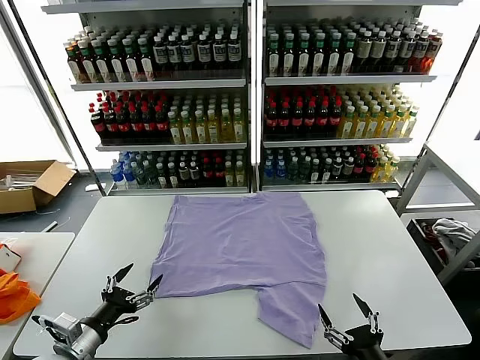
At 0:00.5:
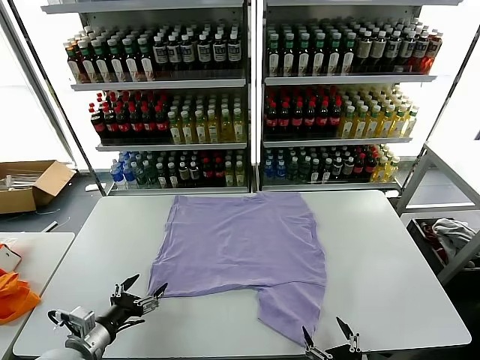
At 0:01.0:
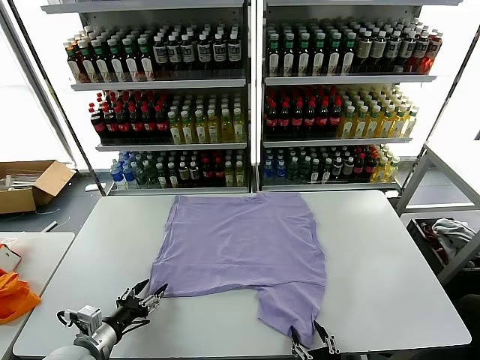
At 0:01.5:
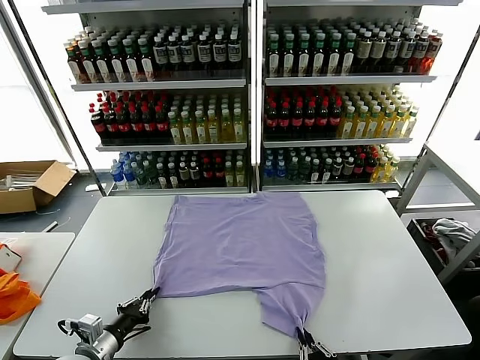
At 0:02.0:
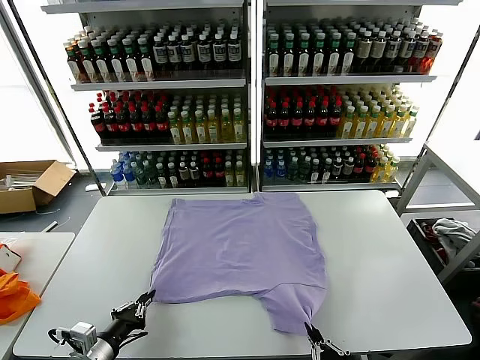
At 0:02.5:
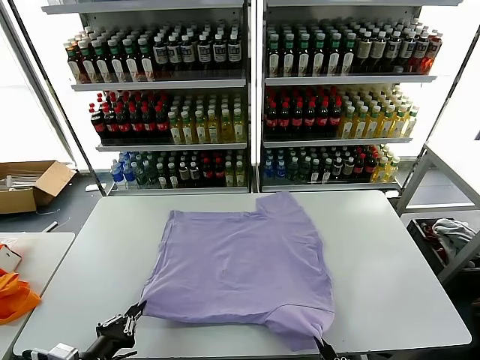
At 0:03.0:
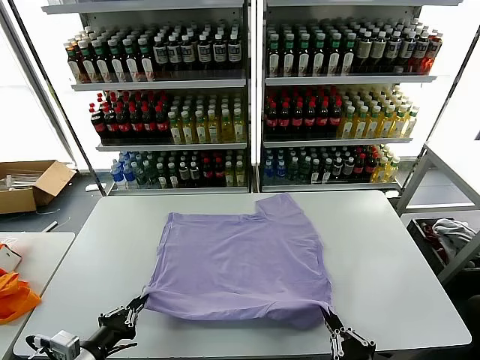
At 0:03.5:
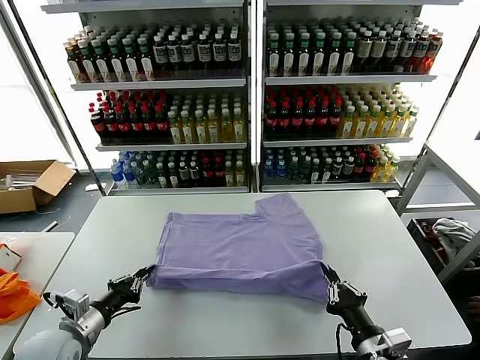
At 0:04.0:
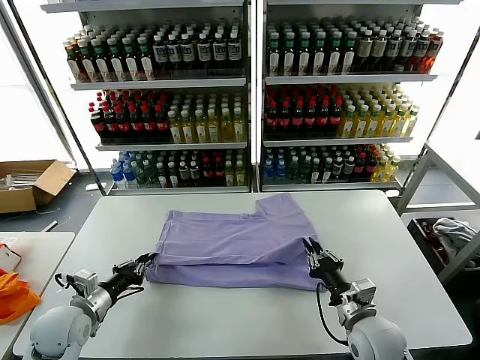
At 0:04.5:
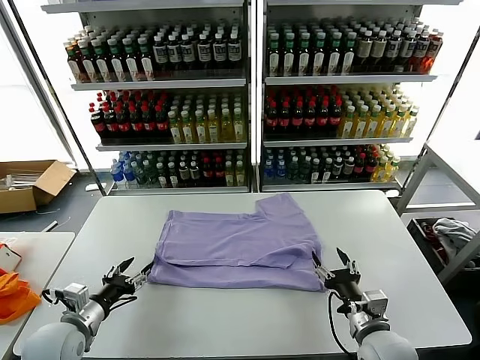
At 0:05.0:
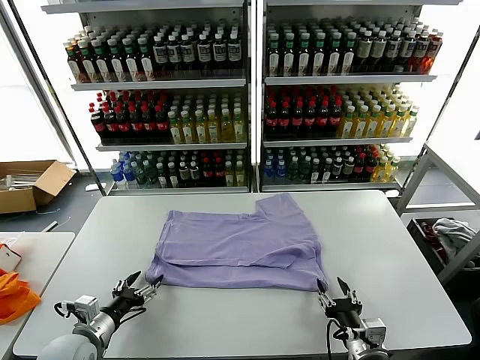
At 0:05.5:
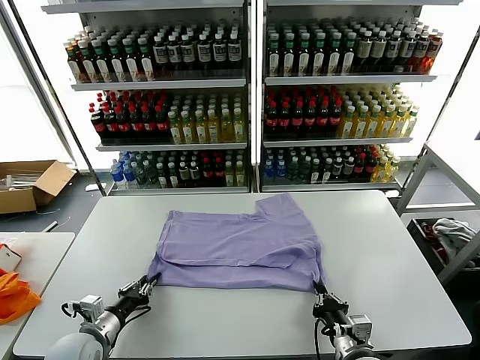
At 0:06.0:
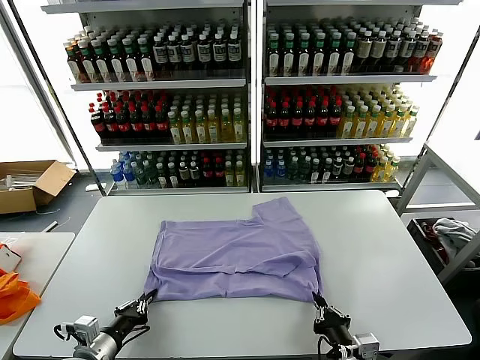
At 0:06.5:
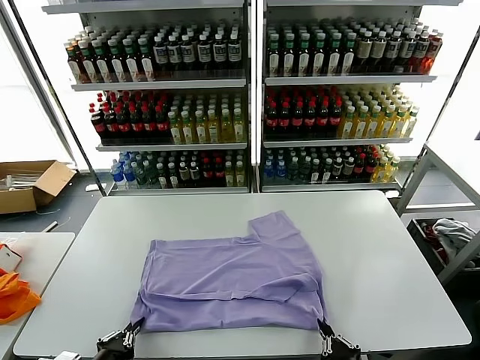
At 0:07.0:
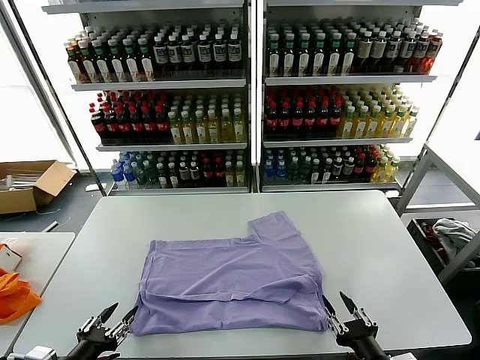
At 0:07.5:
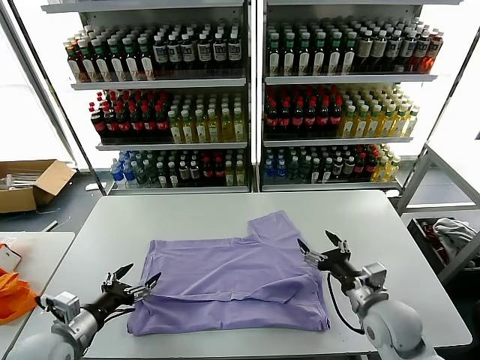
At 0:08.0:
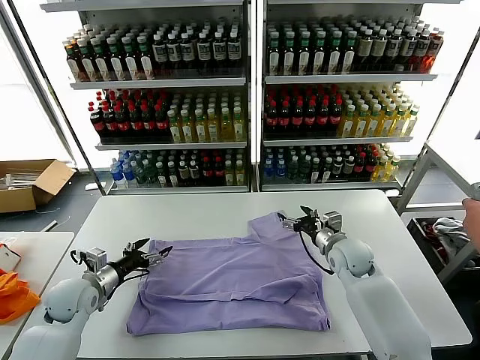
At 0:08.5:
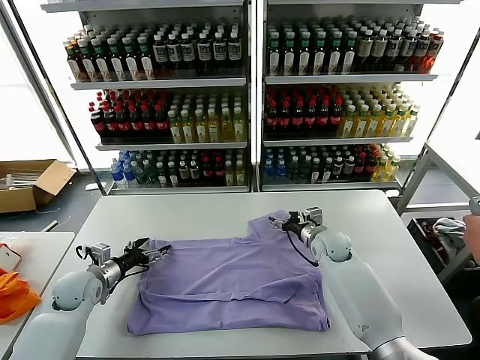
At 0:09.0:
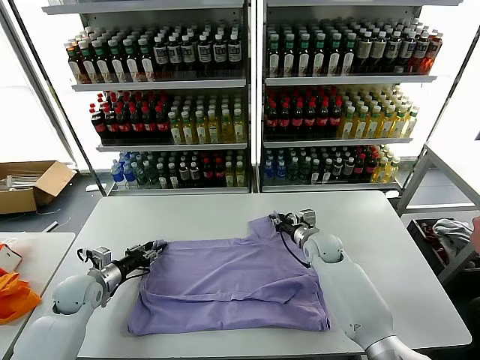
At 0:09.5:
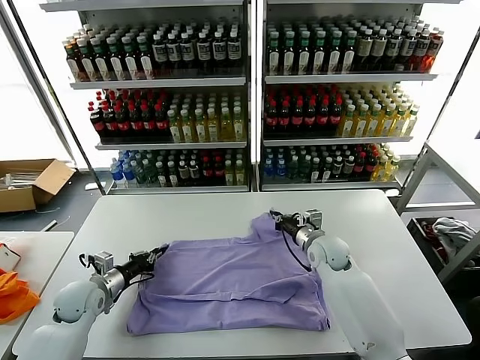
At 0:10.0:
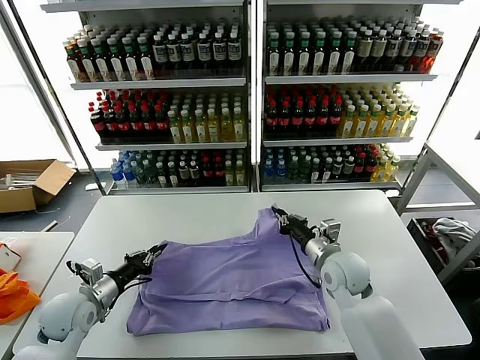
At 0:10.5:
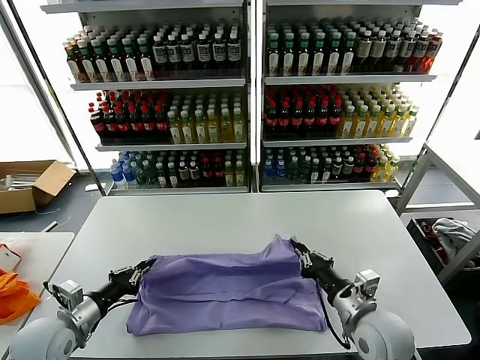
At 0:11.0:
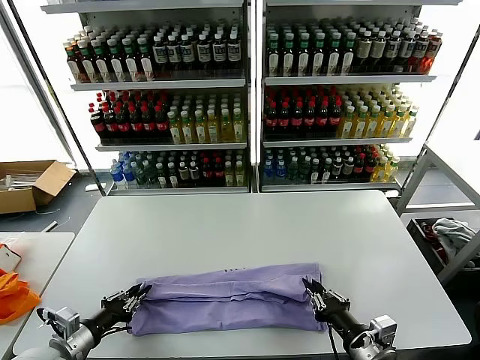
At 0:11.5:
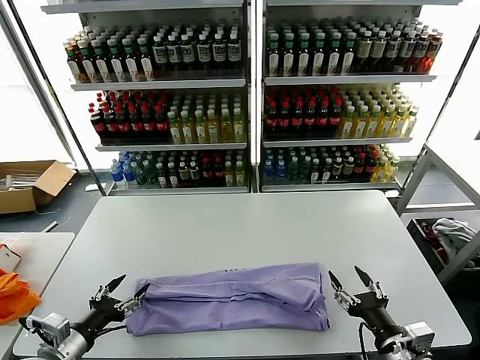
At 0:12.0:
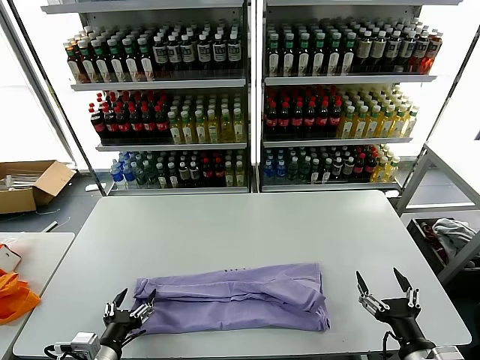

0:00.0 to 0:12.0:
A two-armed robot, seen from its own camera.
Task of the whole recording: fold and organize the clothes.
Step, 0:00.0 to 0:01.5: use both grippers simultaneously to clamp the lower edge of the clothing fabric.
Step, 0:02.0 to 0:04.0: use both grippers to drag the lower edge of the fabric forward and fold it over the upper edge.
Step, 0:04.5 to 0:06.5: Drag the clothes downward with both gripper.
Step, 0:07.0 to 0:09.5: use both grippers simultaneously to clamp the upper edge of the clothing fabric.
Step, 0:10.0 to 0:11.0: use both grippers to drag the upper edge of the fabric backward and fold it over the lower edge.
0:02.0 to 0:04.0: The right gripper goes about 20 cm forward, and opens up. The left gripper shifts approximately 10 cm forward.
0:04.0 to 0:06.0: The grippers both shift backward by some 10 cm. The right gripper closes. Meanwhile the left gripper opens, then closes again.
0:06.0 to 0:08.0: The left gripper travels forward by roughly 15 cm, and opens its fingers; the right gripper is displaced forward by some 35 cm, and opens its fingers.
0:08.0 to 0:10.0: The left gripper shifts by about 5 cm, and closes up. The right gripper goes roughly 10 cm backward, and closes.
0:10.0 to 0:12.0: The right gripper is displaced backward and to the right by about 25 cm, and opens its fingers, while the left gripper shifts about 15 cm backward and to the right, and opens.

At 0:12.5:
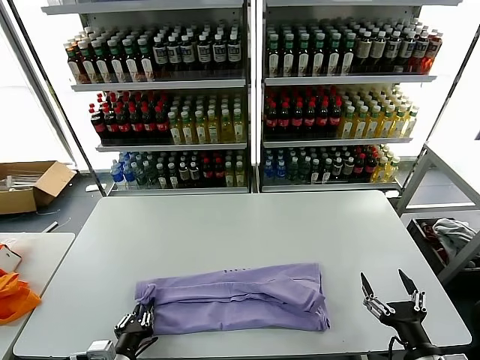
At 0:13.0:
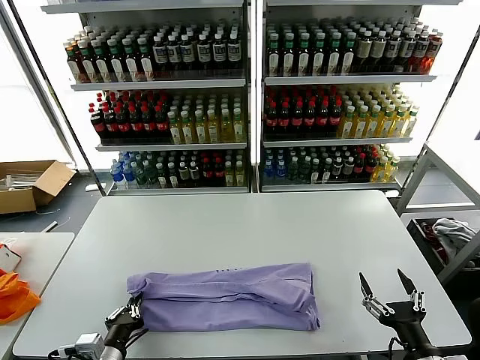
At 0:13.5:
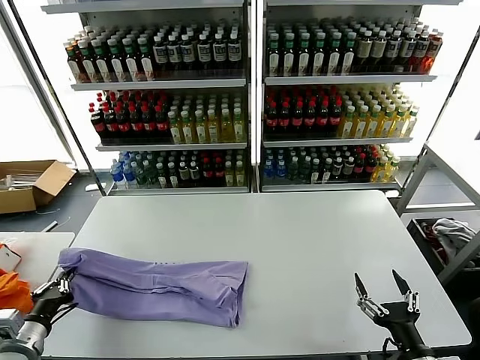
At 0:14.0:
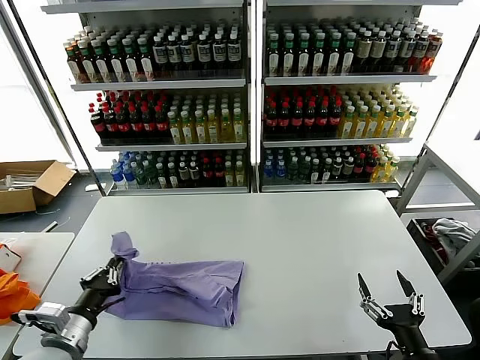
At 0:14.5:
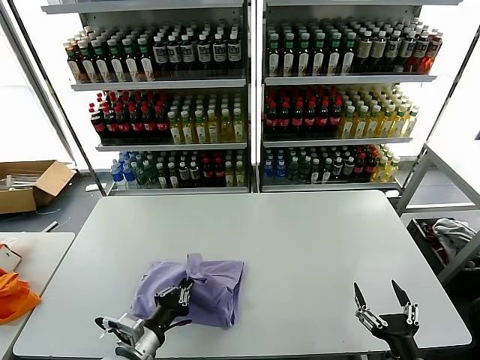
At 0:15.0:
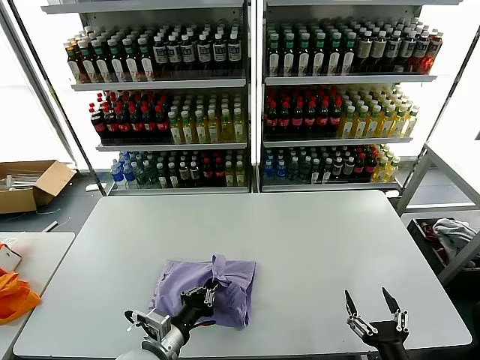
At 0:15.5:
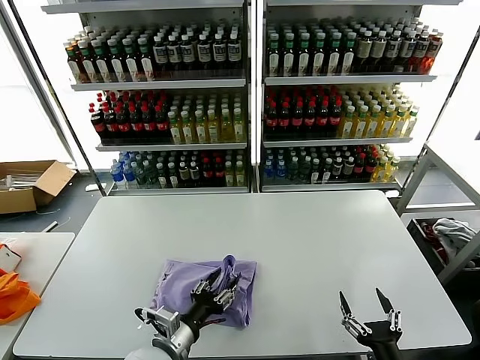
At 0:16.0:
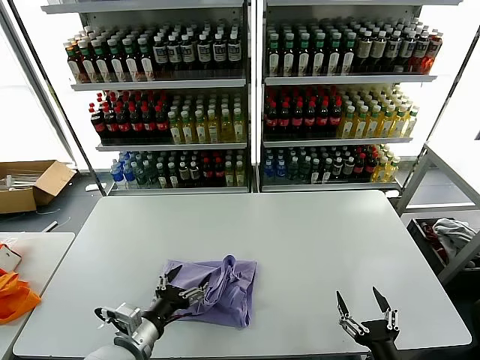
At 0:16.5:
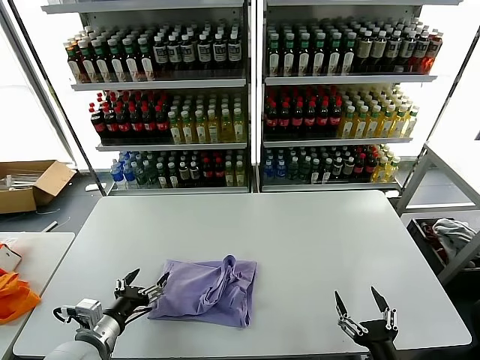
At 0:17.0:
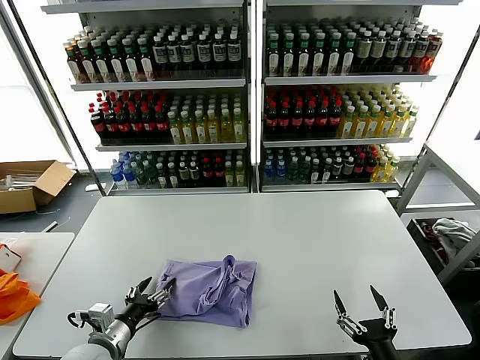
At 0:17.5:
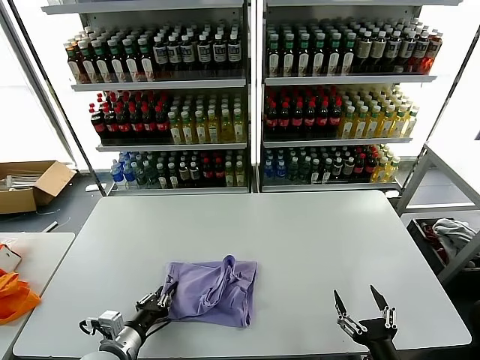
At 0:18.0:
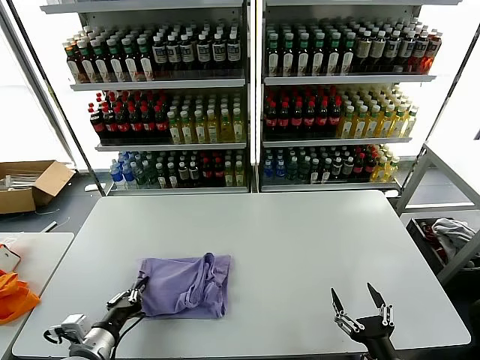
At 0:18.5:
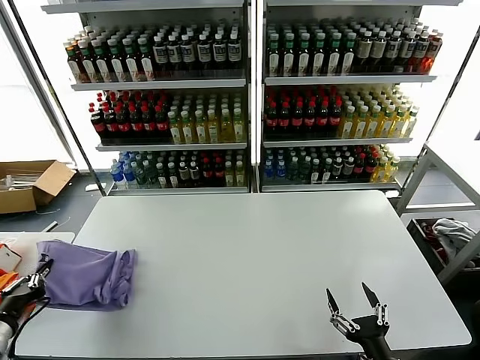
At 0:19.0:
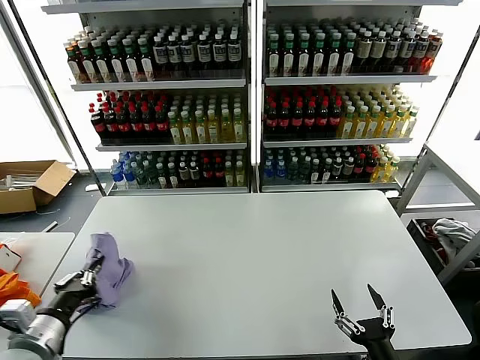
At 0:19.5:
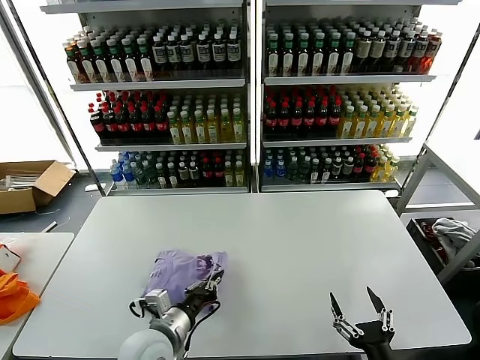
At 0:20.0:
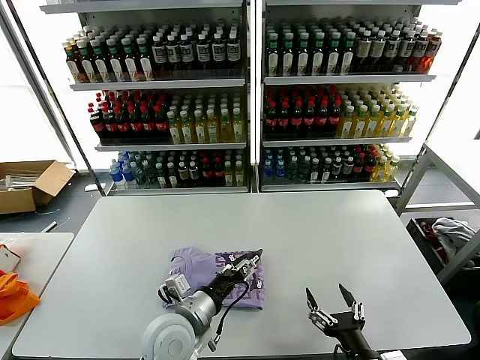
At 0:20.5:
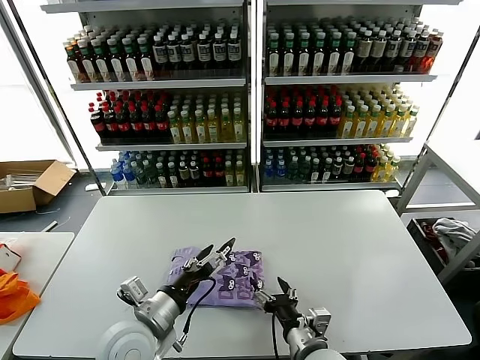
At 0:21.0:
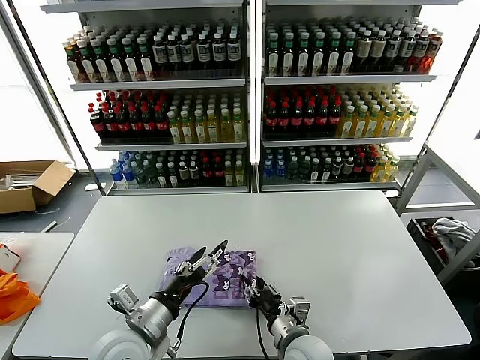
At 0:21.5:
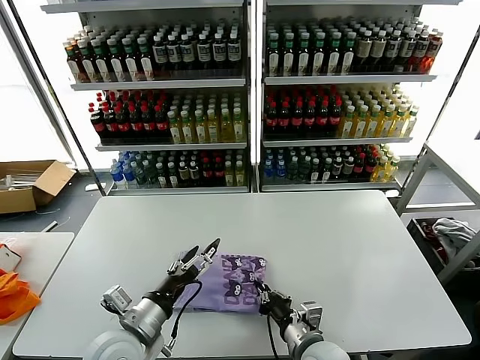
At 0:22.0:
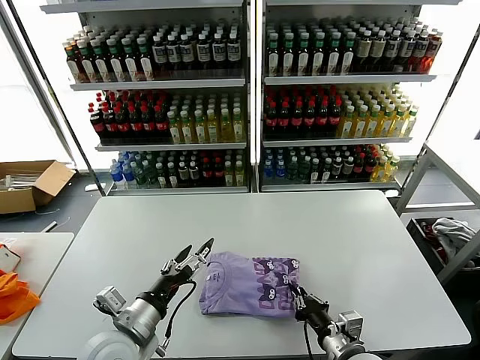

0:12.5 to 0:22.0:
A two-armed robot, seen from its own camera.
Task of the whole recording: fold and organize the clothes.
Step, 0:13.0 to 0:15.5: use the left gripper to drag the left edge of the fabric to the left and folds it over the right edge.
Step, 0:16.0 to 0:19.5: Flip the folded clothes over with left gripper.
0:12.5 to 0:14.5: The left gripper moves some 15 cm to the left and comes back.
0:14.5 to 0:16.5: The left gripper travels to the left by some 10 cm, and opens up.
0:16.5 to 0:18.0: The left gripper closes its fingers.
0:18.0 to 0:20.0: The left gripper moves to the right, approximately 20 cm, and opens up.
0:20.0 to 0:22.0: The right gripper heads forward, covering some 10 cm, moves approximately 10 cm to the left and comes back, and closes its fingers. The left gripper moves to the left, some 10 cm, and opens its fingers.

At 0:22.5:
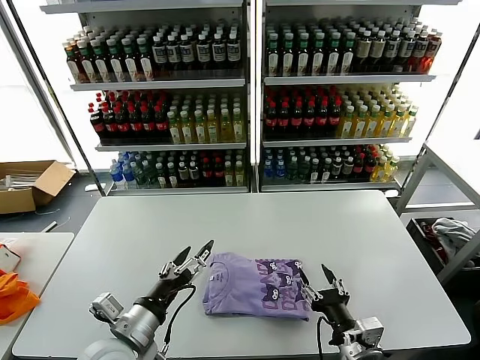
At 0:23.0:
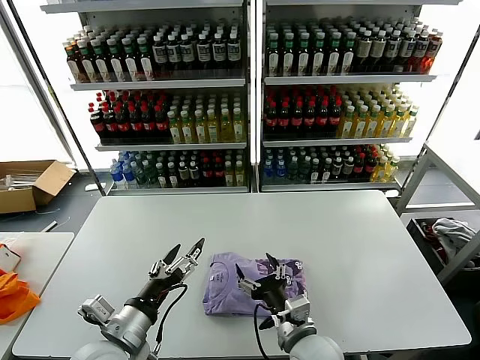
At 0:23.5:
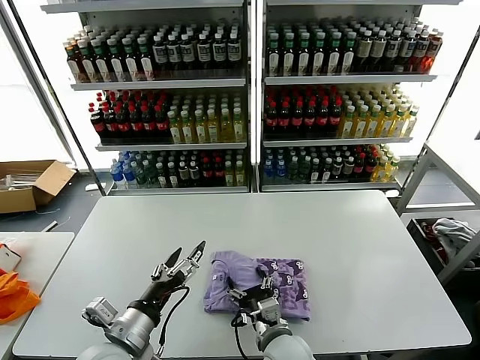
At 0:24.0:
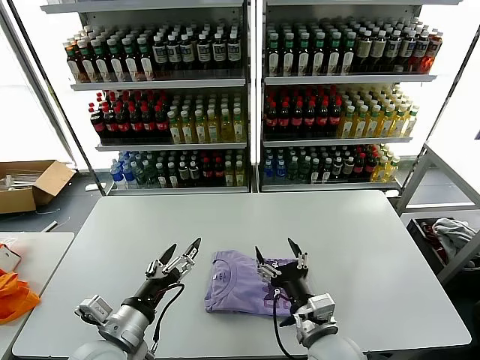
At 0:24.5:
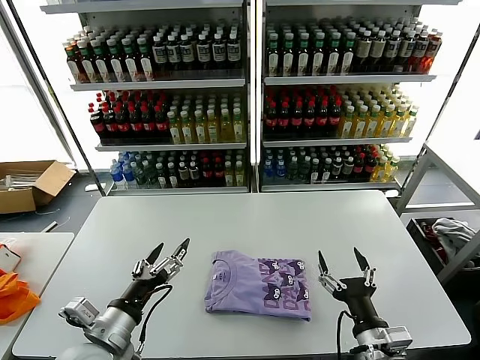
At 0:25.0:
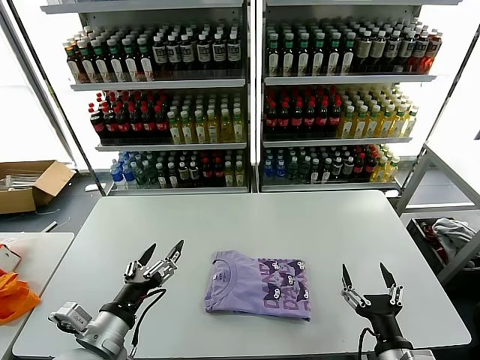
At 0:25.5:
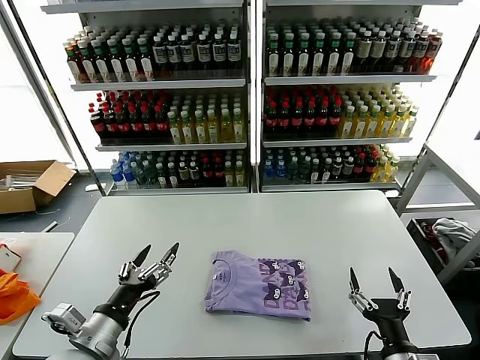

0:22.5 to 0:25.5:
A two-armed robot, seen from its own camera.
Task of the whole recording: fold and organize the clothes.
0:22.5 to 0:24.0: The right gripper moves to the left, roughly 10 cm.
0:24.0 to 0:25.5: The right gripper travels to the right and backward by roughly 15 cm.
